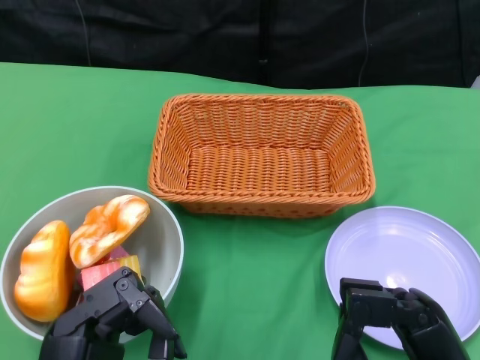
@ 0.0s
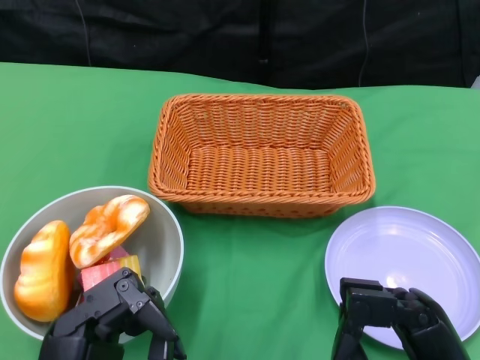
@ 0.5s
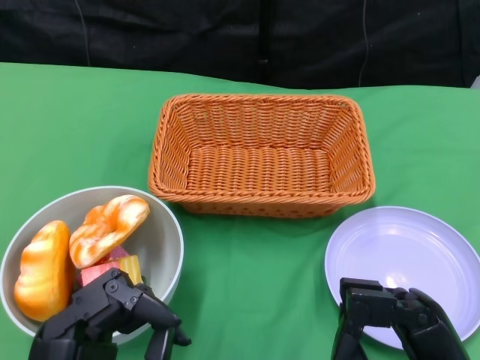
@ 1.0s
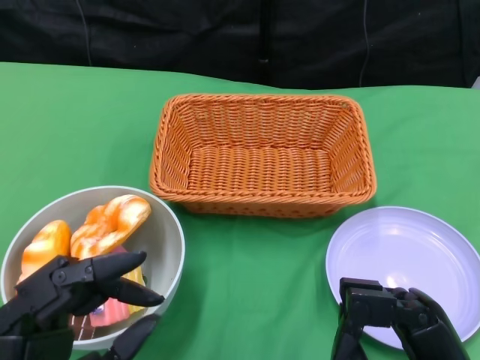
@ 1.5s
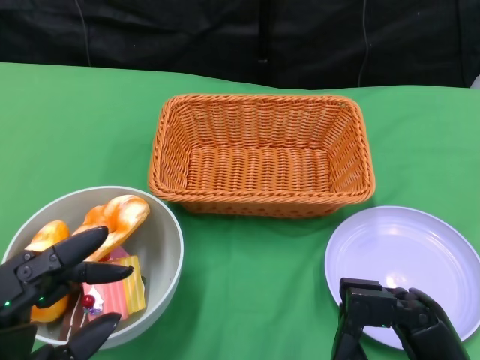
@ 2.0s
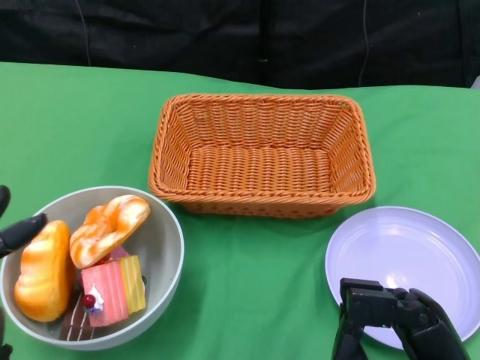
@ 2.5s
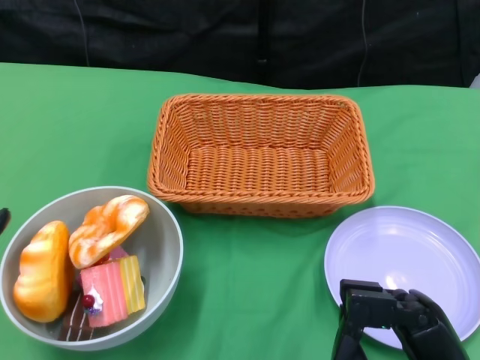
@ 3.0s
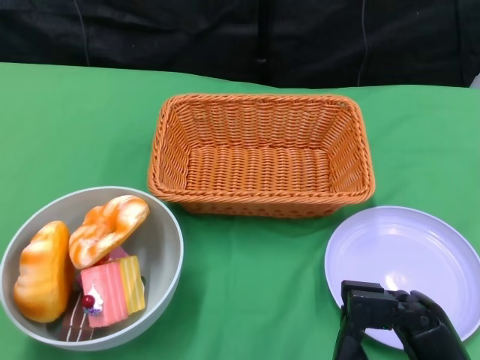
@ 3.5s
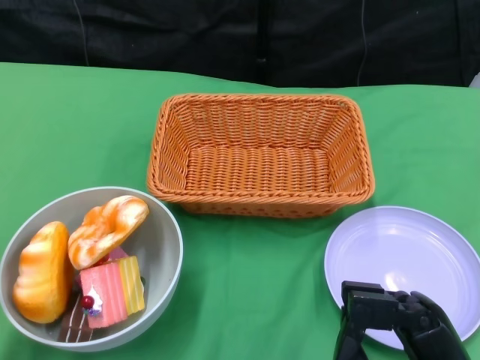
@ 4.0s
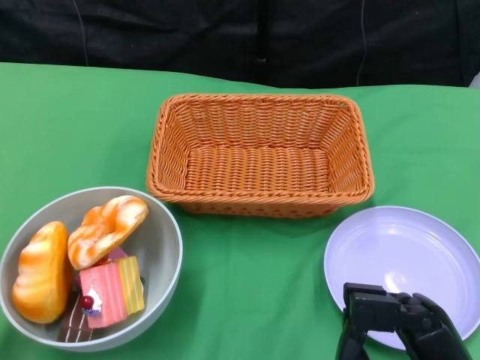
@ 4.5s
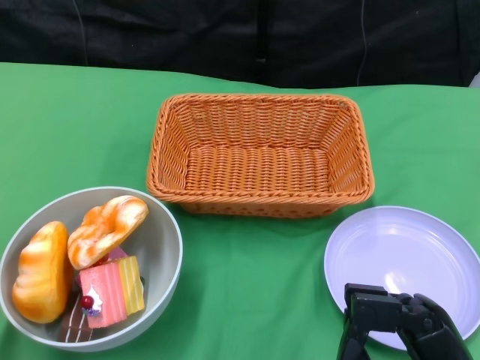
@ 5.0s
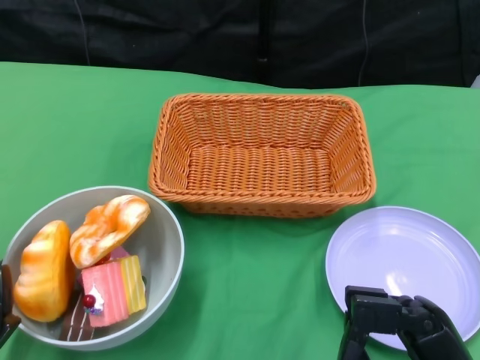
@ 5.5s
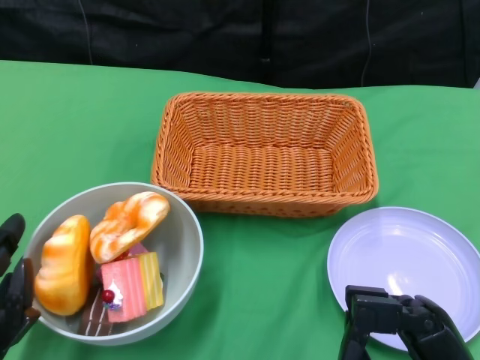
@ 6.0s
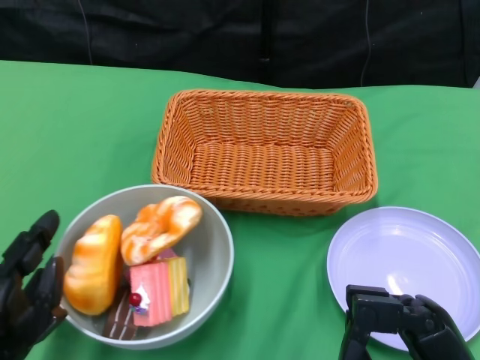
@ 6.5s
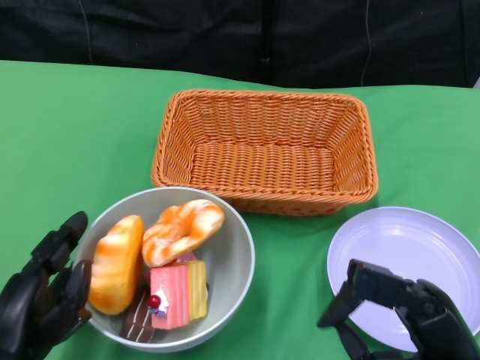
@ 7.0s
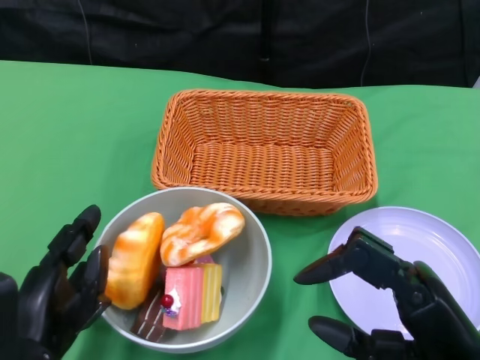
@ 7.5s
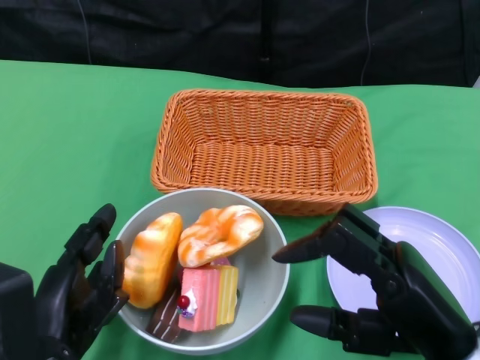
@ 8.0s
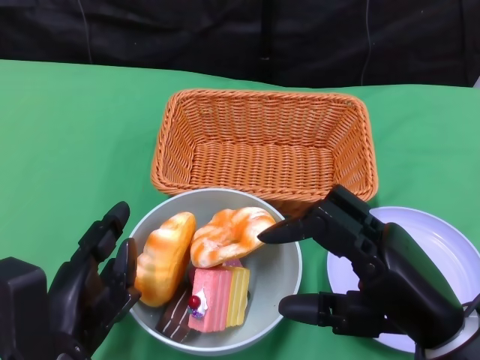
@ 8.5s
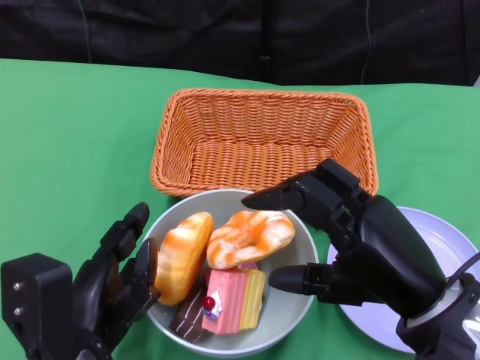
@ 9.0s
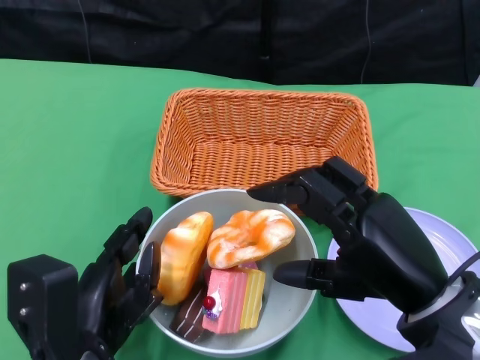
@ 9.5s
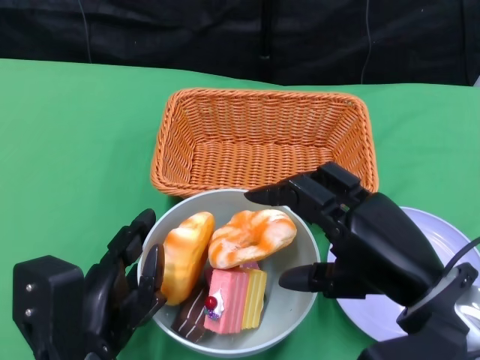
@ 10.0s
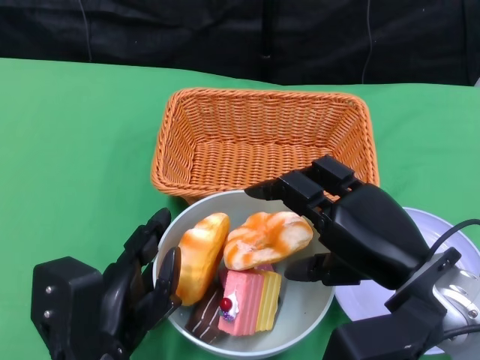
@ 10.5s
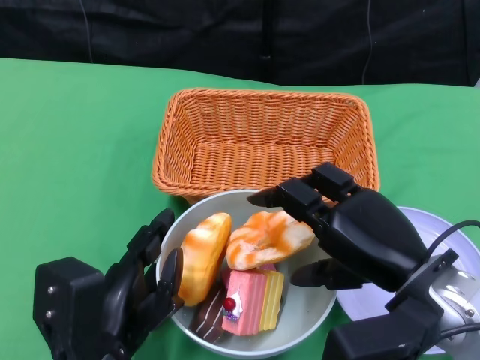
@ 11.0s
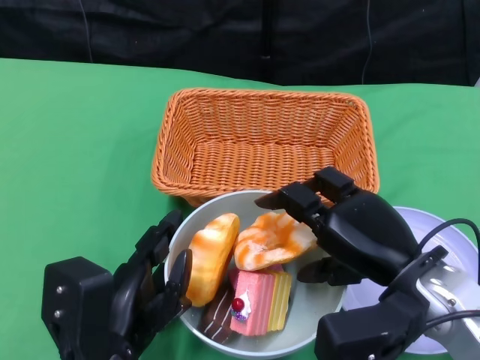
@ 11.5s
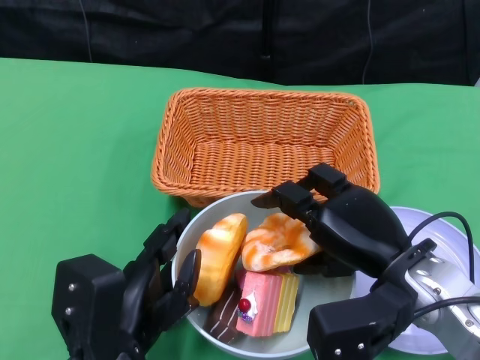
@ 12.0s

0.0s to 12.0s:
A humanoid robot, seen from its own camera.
Step, 0.0s to 12.0s: Push the bowl to the center of the table using the left gripper.
2.0s to 4.0s: The left hand heads to the left, covering approximately 5 cm.
4.0s to 6.0s: The left hand changes place by about 5 cm.
6.0s to 8.0s: The left hand heads to the right, covering approximately 5 cm, while the right hand shifts about 5 cm upward.
10.0s to 12.0s: The right hand ends up about 5 cm from where it was.

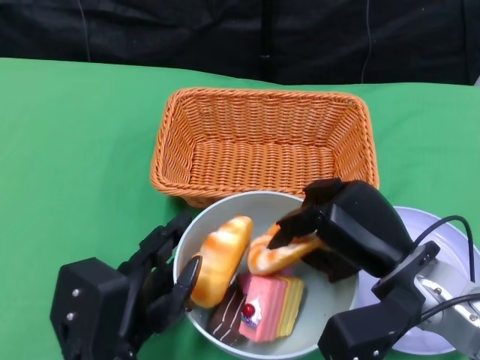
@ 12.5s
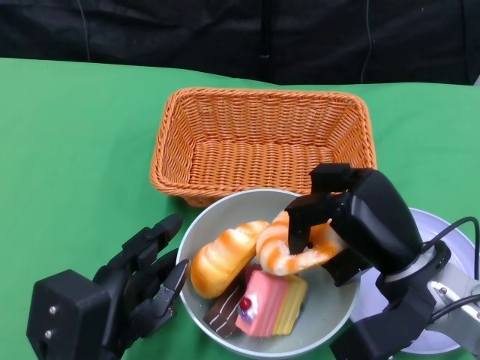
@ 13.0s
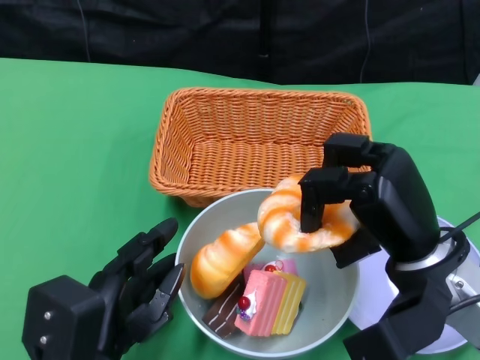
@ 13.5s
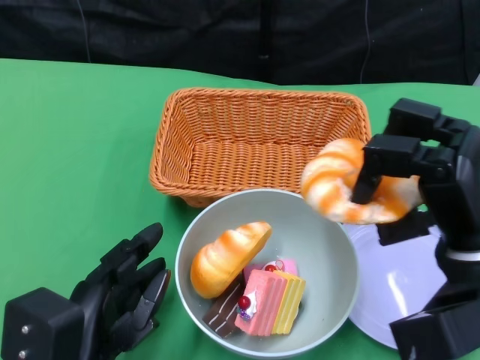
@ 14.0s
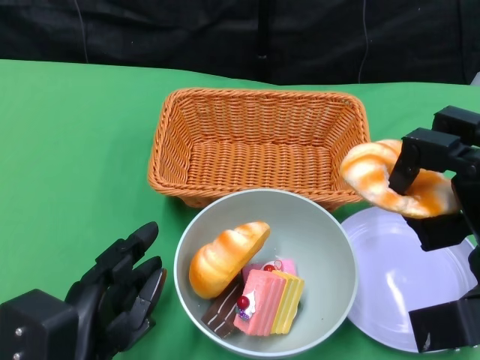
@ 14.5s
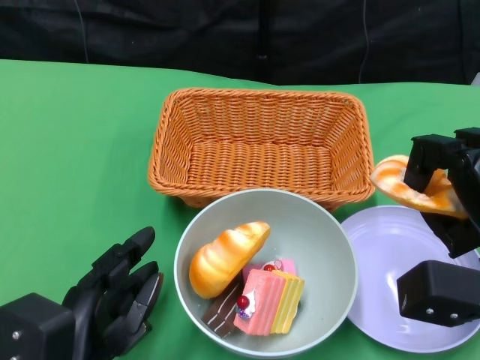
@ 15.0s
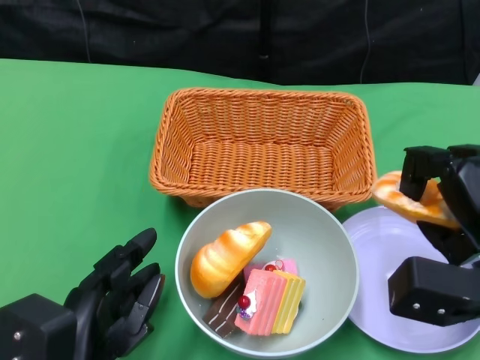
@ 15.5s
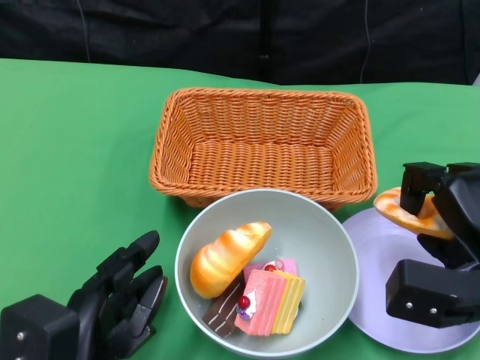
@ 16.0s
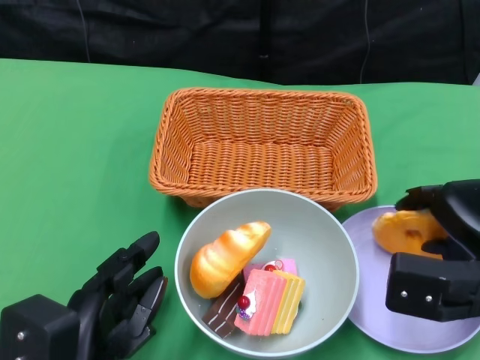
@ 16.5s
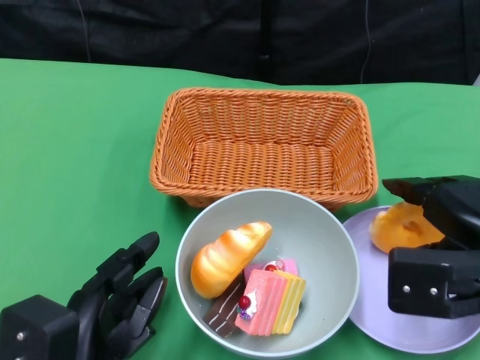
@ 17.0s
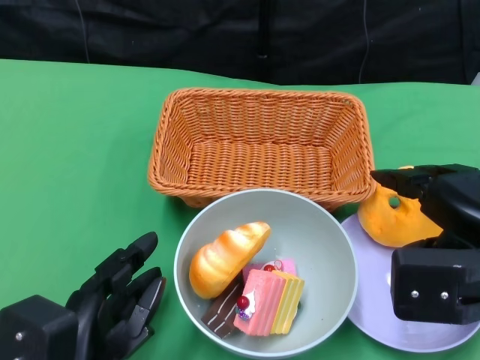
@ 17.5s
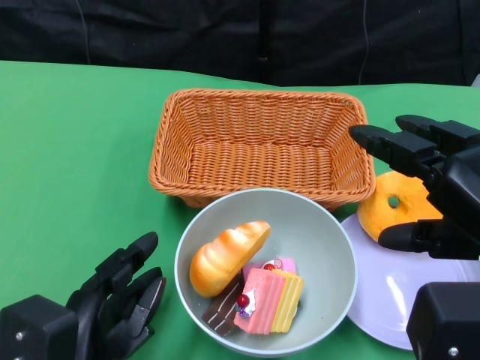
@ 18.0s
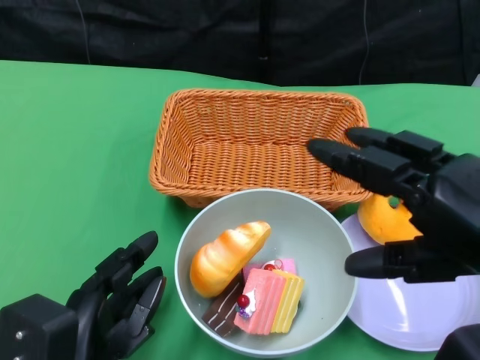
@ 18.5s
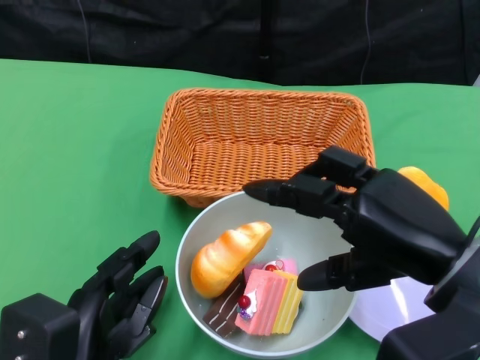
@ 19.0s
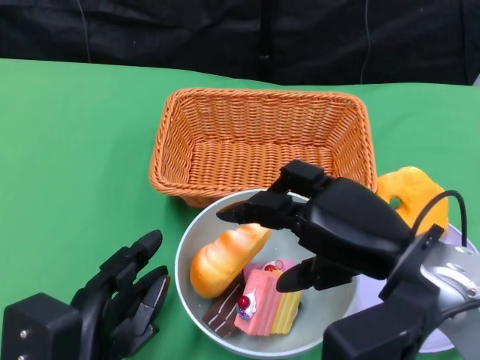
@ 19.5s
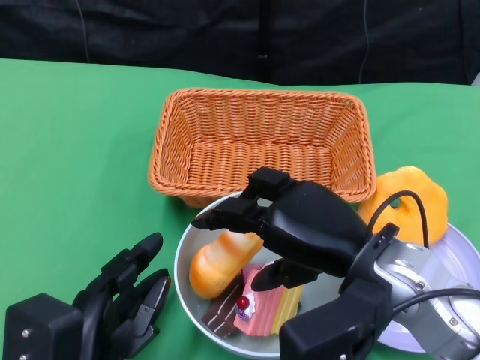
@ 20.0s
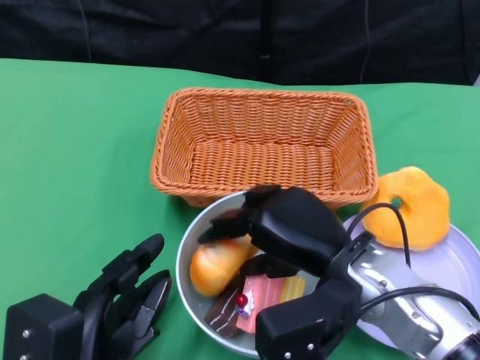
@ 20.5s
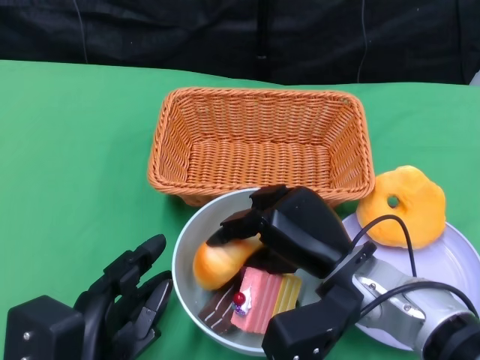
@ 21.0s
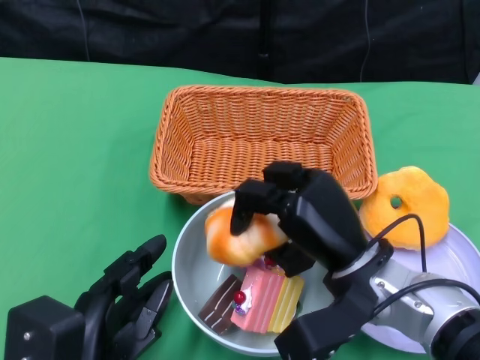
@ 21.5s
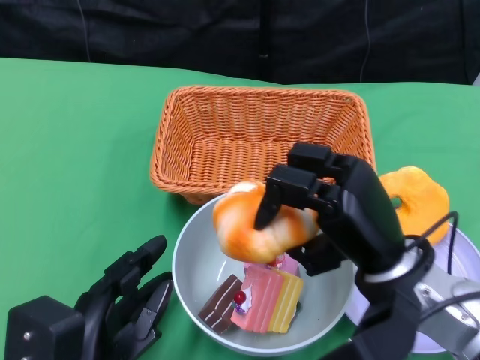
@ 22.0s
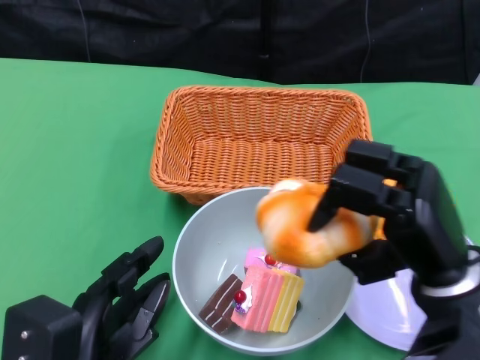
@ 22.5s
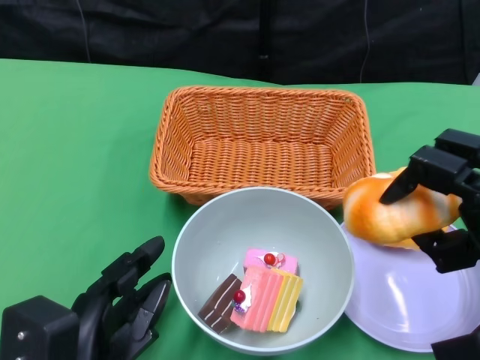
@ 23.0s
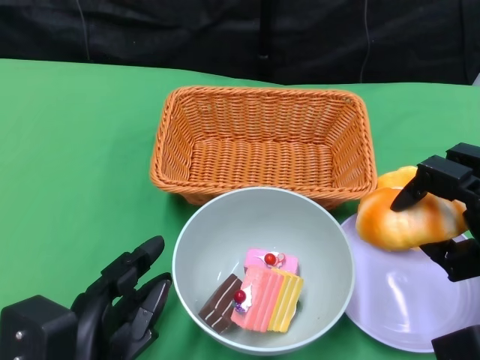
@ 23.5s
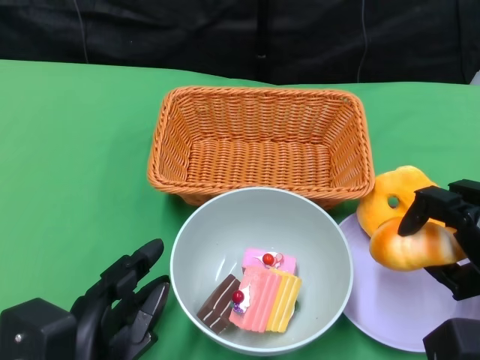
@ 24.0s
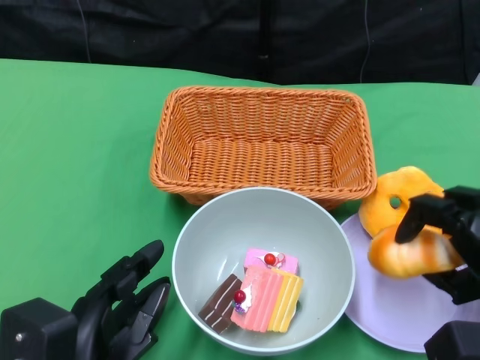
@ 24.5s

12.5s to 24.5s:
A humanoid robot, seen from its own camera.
12.5s to 14.5s: The right hand goes about 5 cm to the right.
16.5s to 18.5s: The right hand heads upward and backward, covering some 10 cm.
18.5s to 20.5s: The right hand is displaced to the left, downward and forward by approximately 15 cm.
20.5s to 22.5s: The right hand heads to the right, covering about 5 cm.
22.5s to 24.5s: The right hand is displaced to the right by about 10 cm.

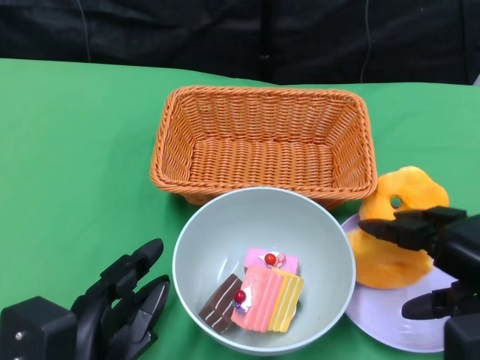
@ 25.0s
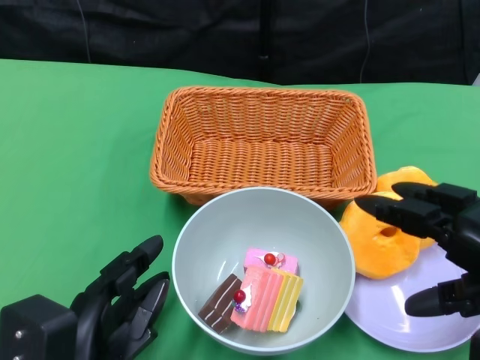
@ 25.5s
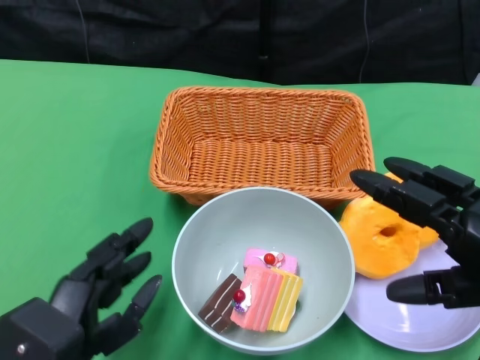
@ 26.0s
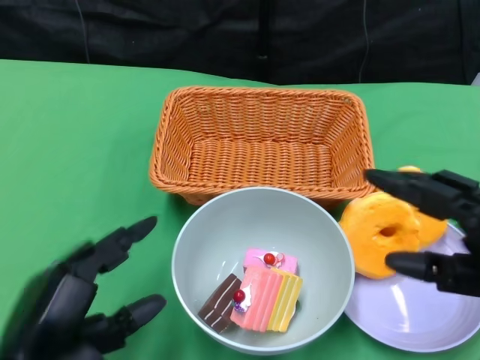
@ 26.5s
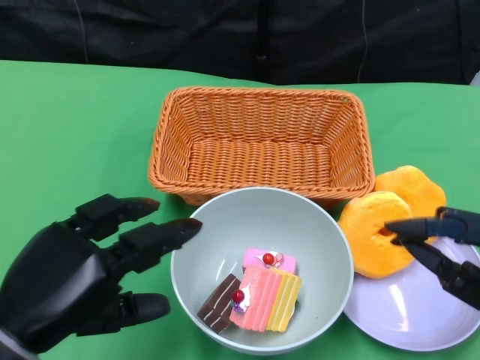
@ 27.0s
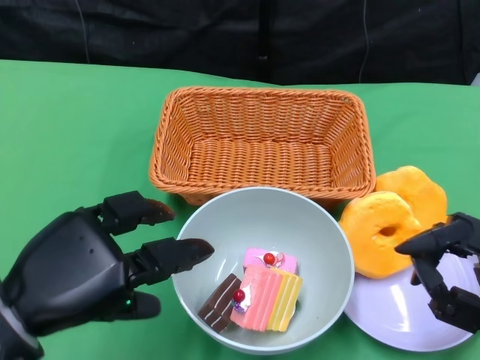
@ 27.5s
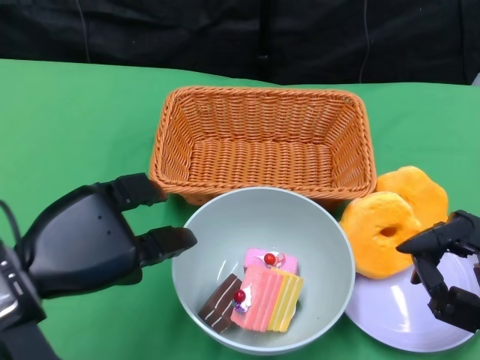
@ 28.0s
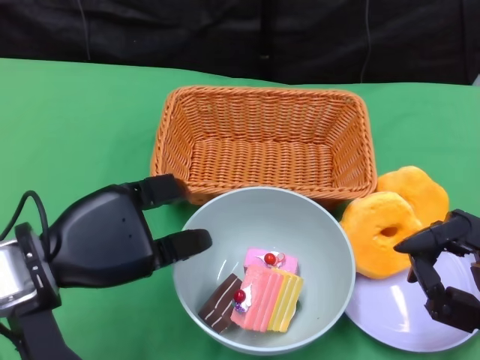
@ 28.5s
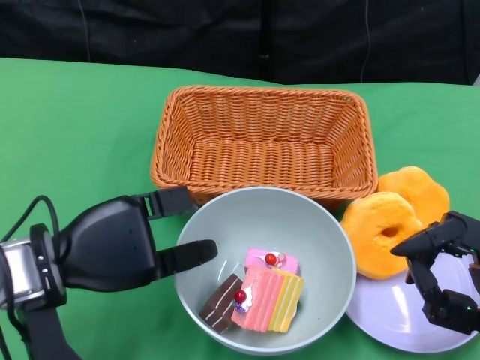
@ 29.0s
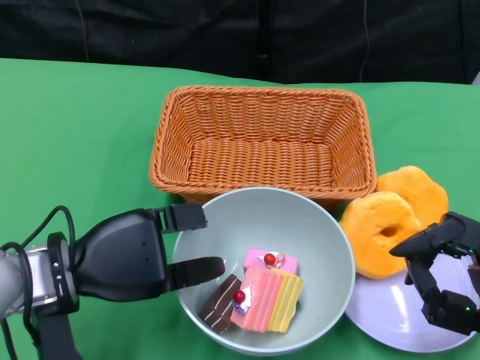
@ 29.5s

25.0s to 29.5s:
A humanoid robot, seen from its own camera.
25.0s to 27.0s: The left hand shifts approximately 5 cm upward.
27.0s to 29.5s: The left hand moves forward, roughly 10 cm.
